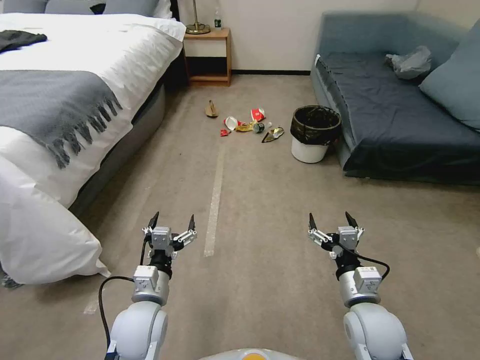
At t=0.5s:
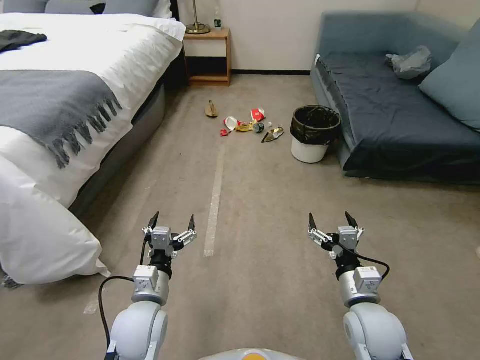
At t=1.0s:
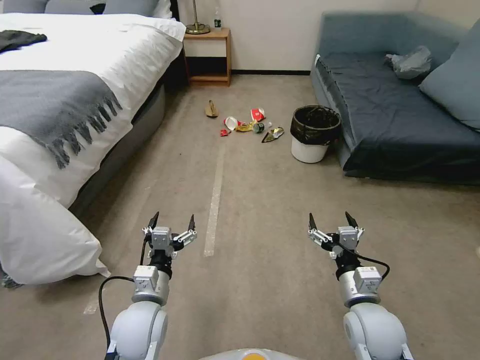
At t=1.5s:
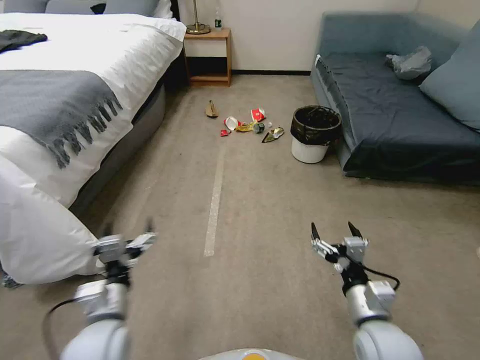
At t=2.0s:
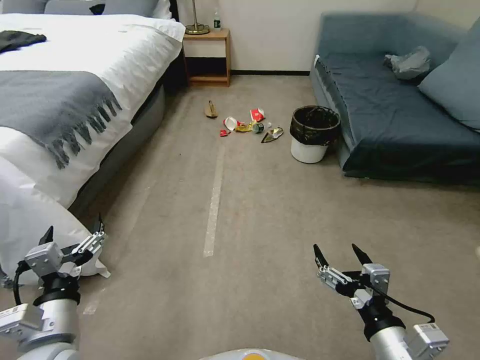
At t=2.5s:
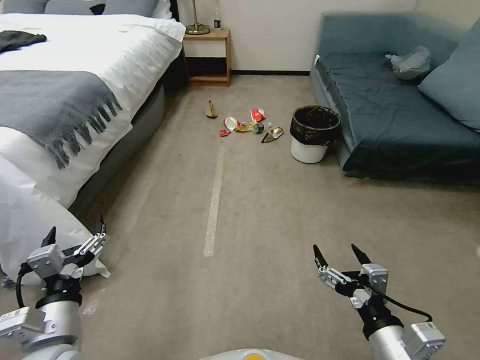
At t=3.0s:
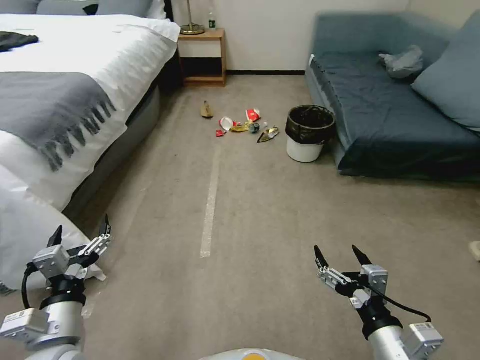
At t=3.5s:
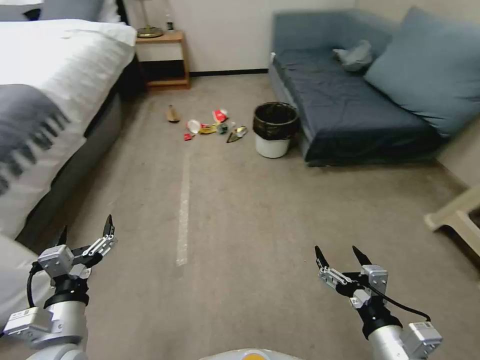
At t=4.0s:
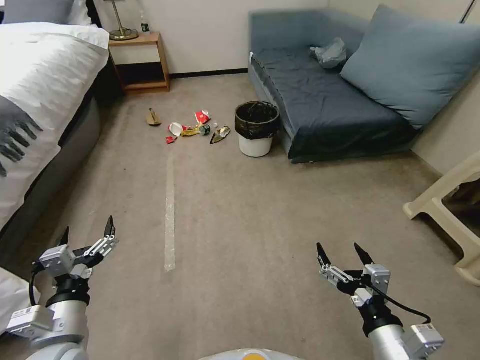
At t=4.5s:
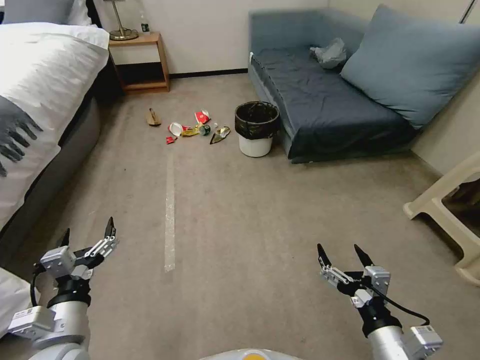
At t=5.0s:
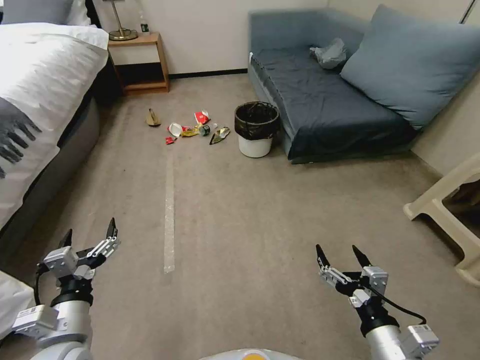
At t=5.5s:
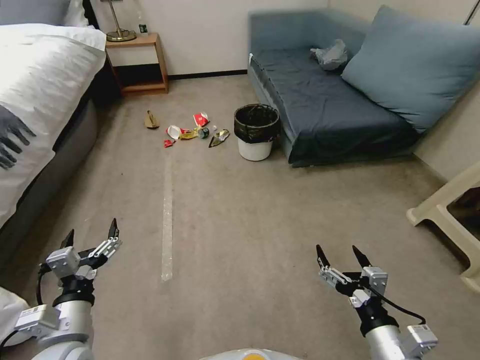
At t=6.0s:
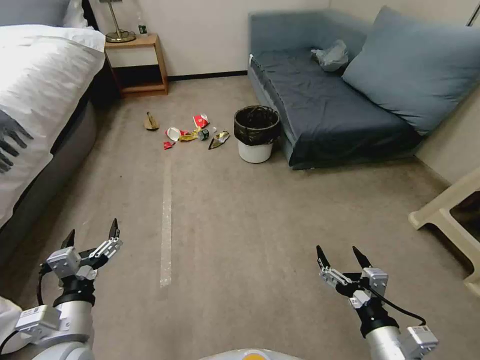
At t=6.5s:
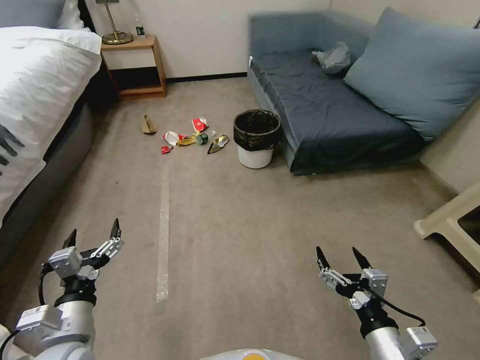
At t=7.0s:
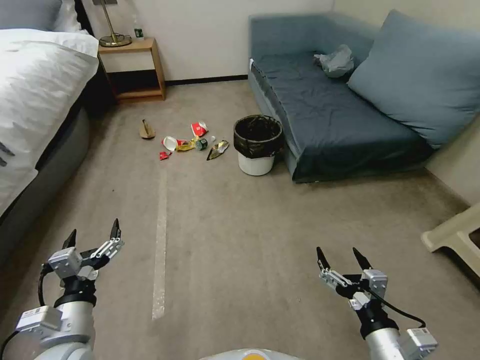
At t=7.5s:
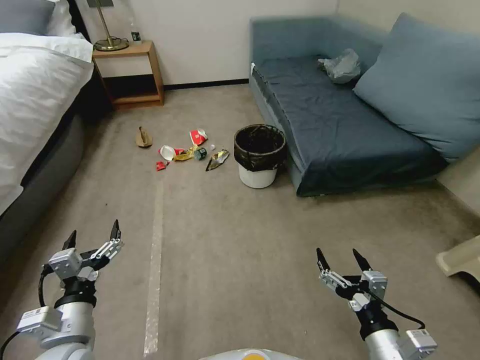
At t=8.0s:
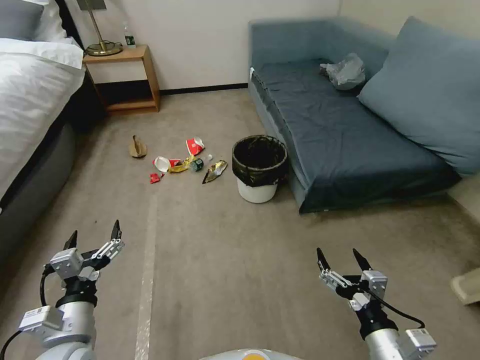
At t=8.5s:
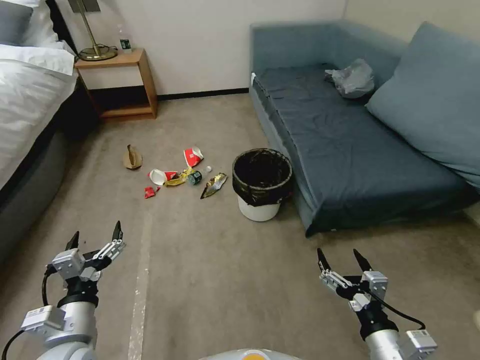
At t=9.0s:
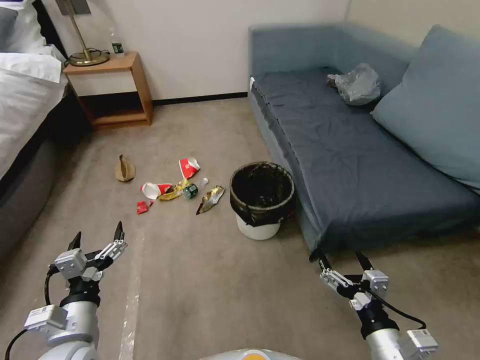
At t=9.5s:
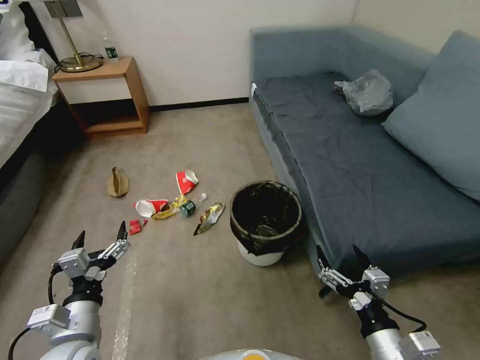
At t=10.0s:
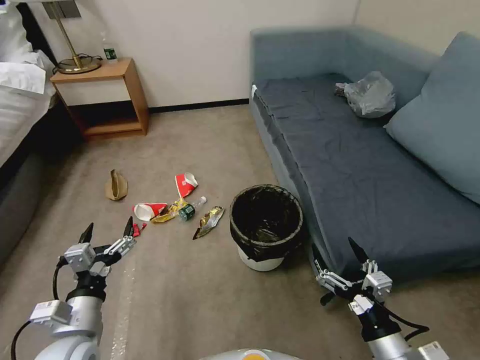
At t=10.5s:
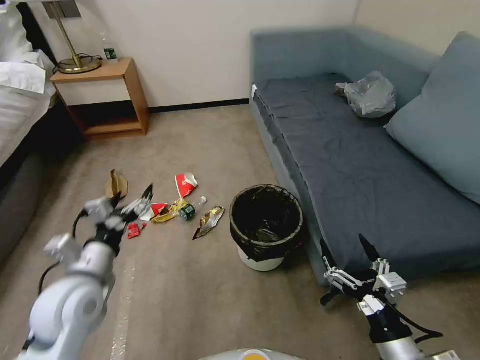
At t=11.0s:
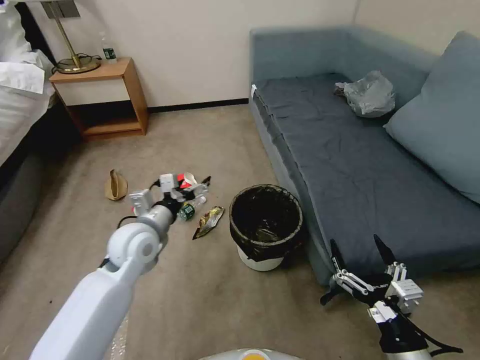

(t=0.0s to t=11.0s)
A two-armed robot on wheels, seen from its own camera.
Task of the whole recording: Pick up the trash can from the floor.
t=9.0s - t=11.0s: The left gripper heads forward, covering about 20 cm.

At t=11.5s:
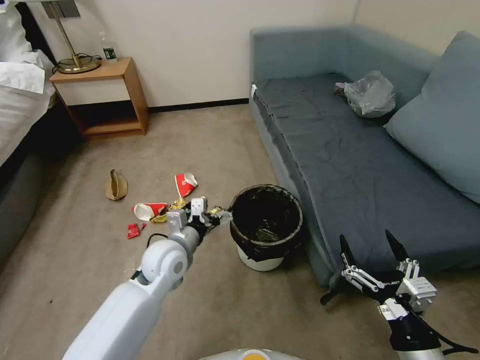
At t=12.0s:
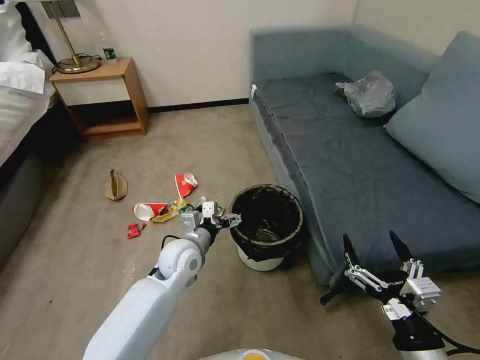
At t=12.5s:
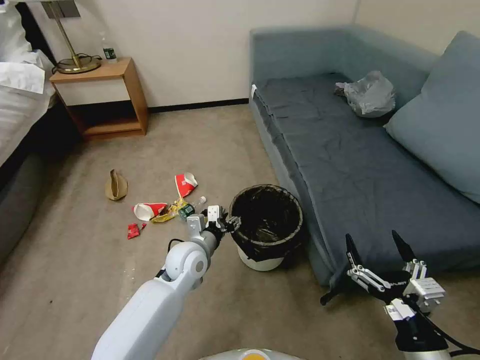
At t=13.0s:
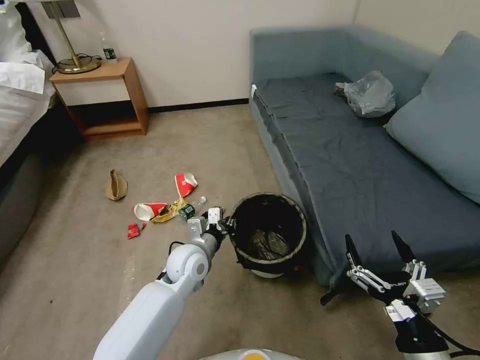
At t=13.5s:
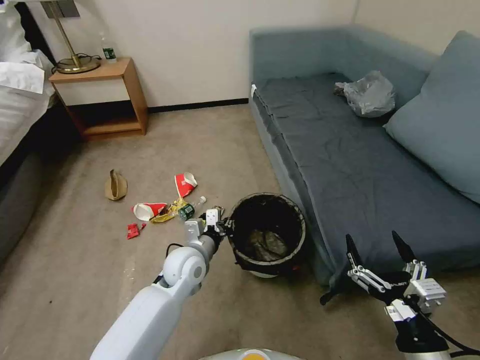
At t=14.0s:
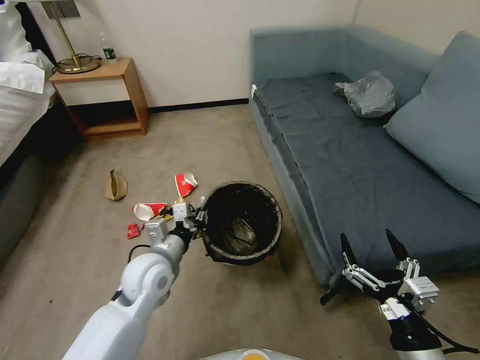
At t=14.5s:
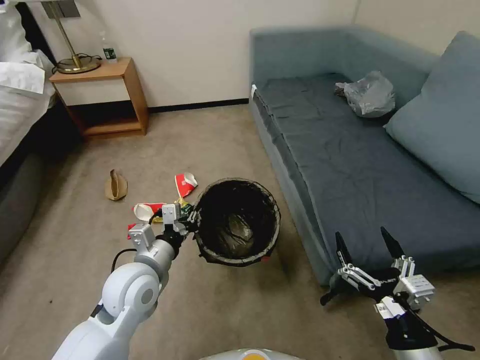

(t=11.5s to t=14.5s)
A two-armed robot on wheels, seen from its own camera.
Task of the whole recording: Pick up the trash can from the floor.
t=11.5s - t=13.0s: The left gripper changes place by about 5 cm, and closes up.
t=13.0s - t=14.5s: The left gripper goes some 15 cm upward, backward and to the left.

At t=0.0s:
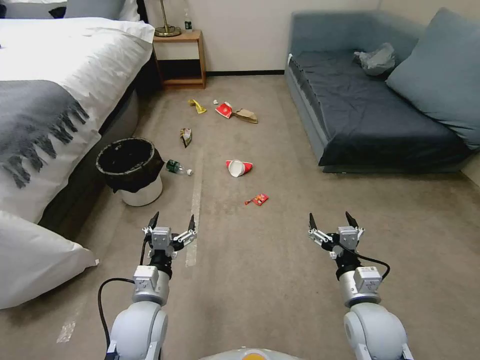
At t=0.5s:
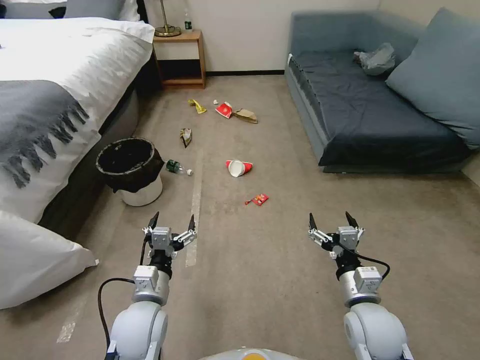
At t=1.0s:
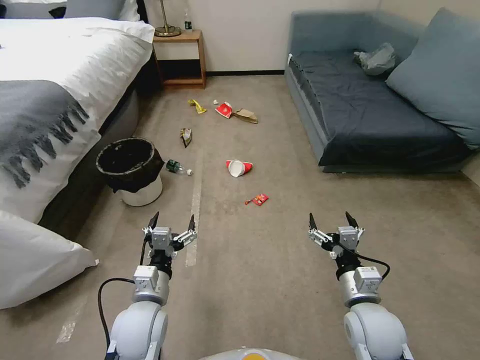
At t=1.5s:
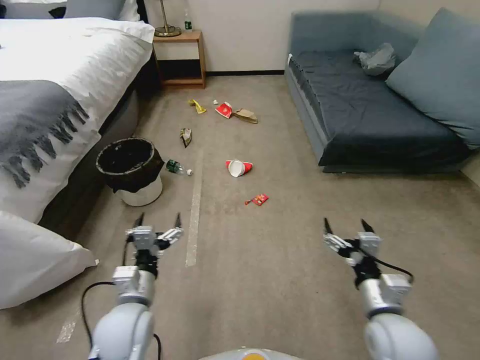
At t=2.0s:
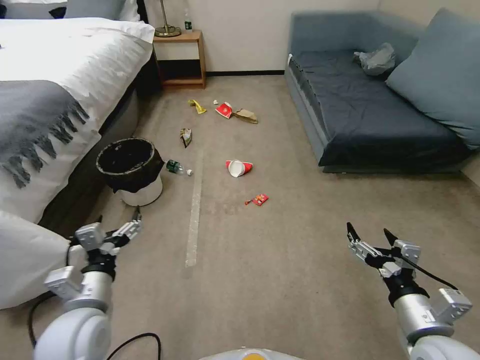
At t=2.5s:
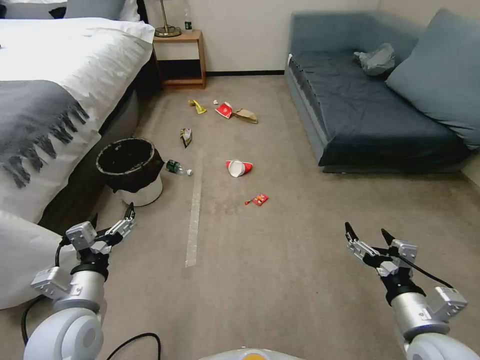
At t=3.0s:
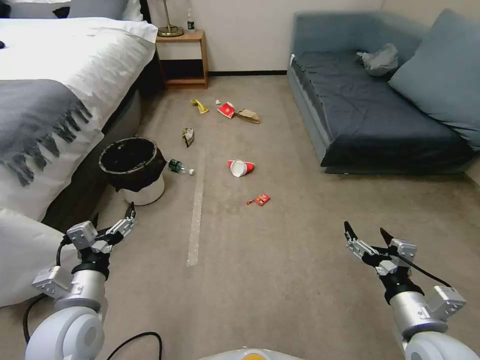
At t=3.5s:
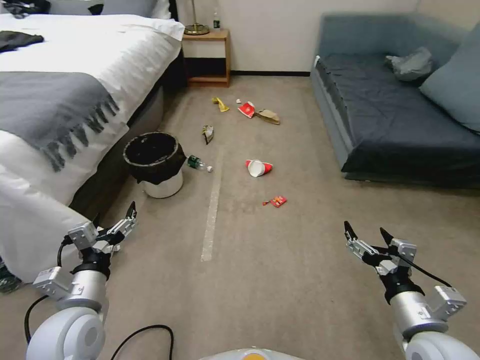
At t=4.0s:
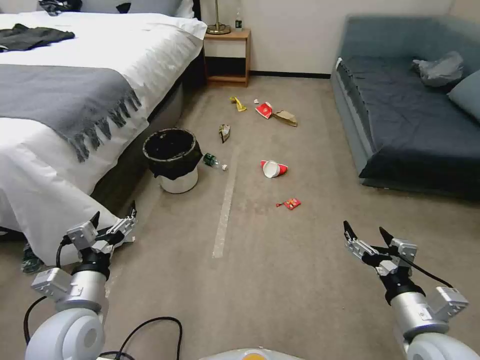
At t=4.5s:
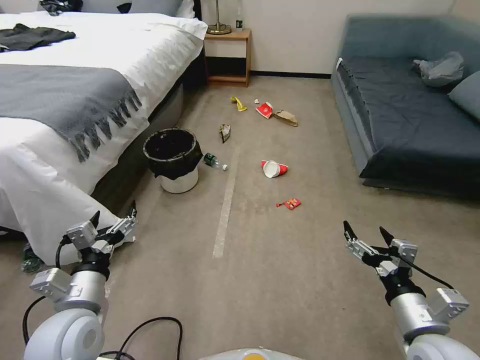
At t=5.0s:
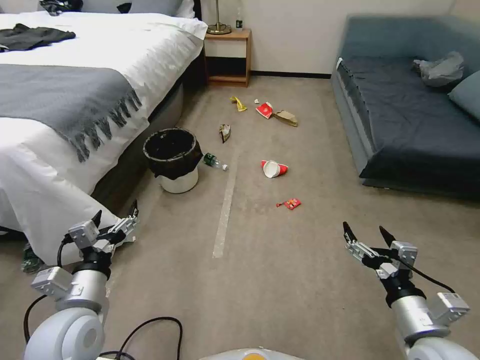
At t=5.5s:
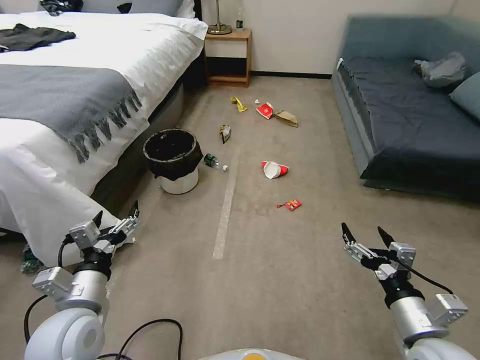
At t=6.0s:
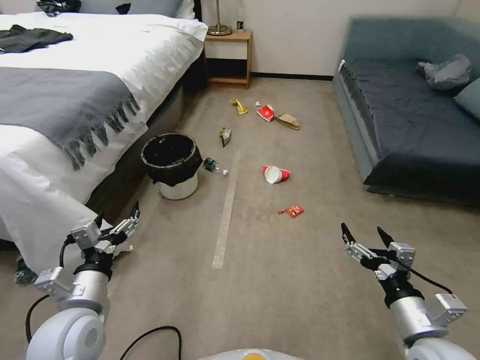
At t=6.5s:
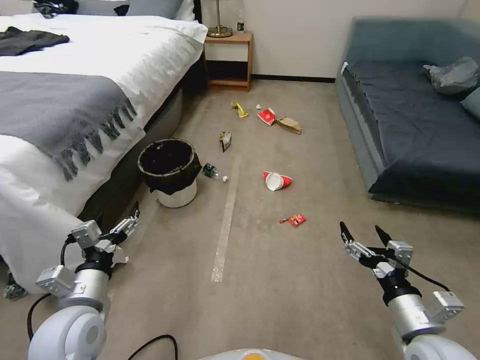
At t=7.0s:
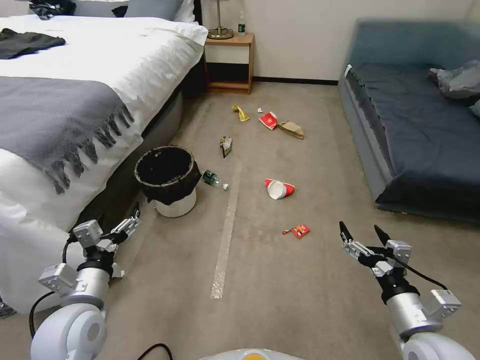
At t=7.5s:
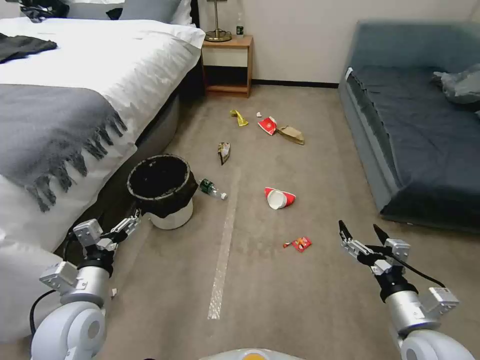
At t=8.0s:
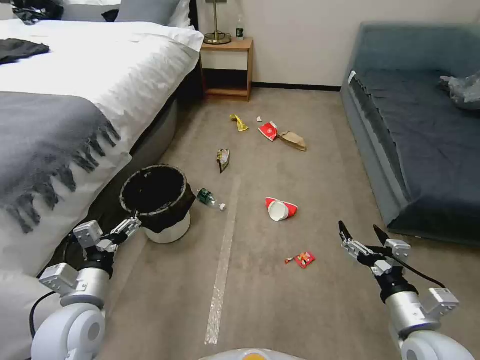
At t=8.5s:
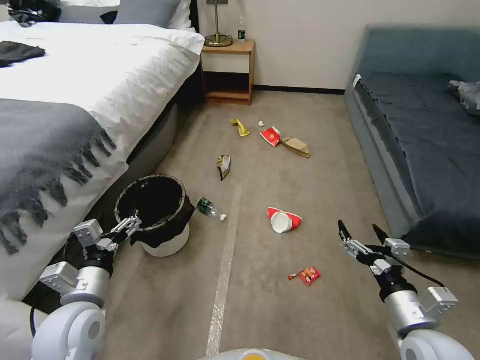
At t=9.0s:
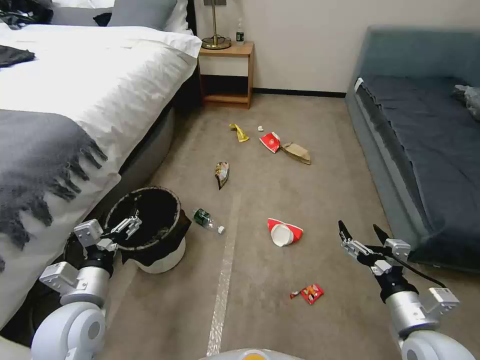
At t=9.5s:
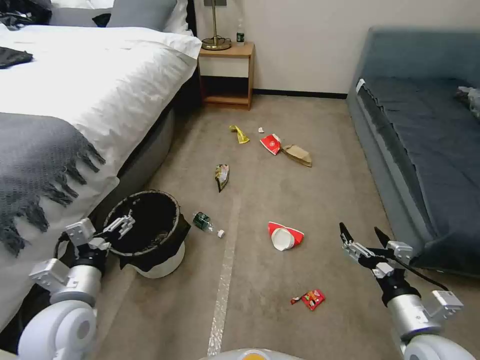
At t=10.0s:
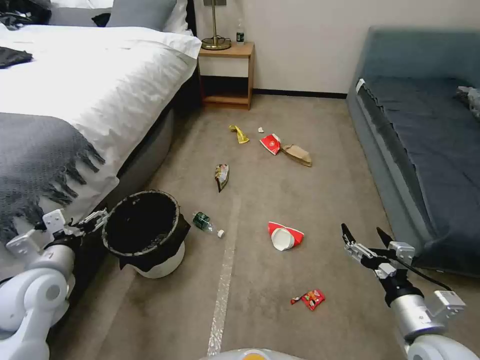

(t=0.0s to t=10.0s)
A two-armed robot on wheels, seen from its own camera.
Task of the whole recording: Pick up the trash can from the floor.
t=4.0s - t=6.0s: The two grippers keep their place.
t=8.0s - t=10.0s: The left gripper is displaced to the left by roughly 5 cm.

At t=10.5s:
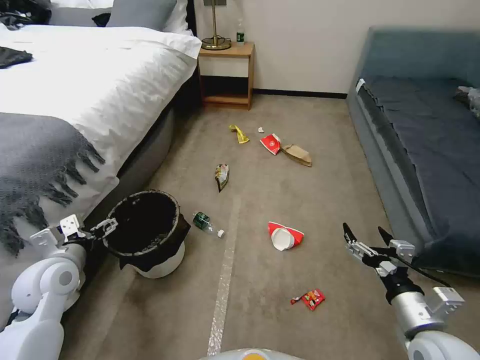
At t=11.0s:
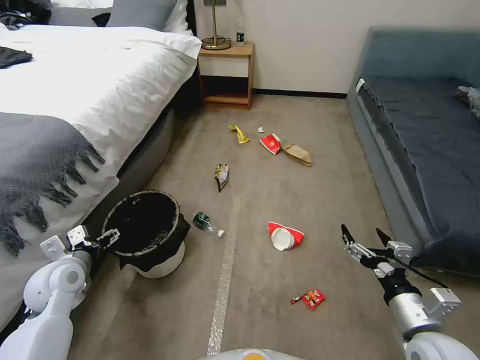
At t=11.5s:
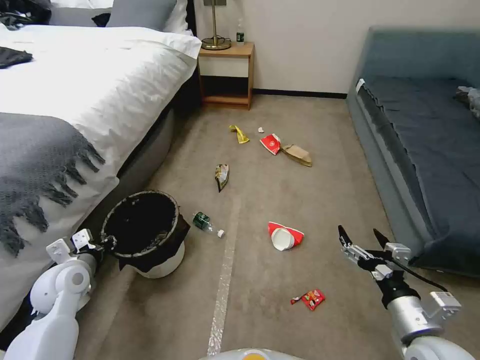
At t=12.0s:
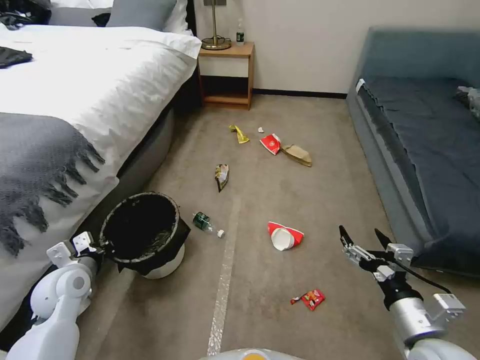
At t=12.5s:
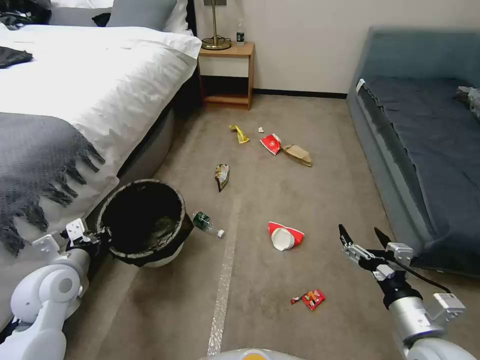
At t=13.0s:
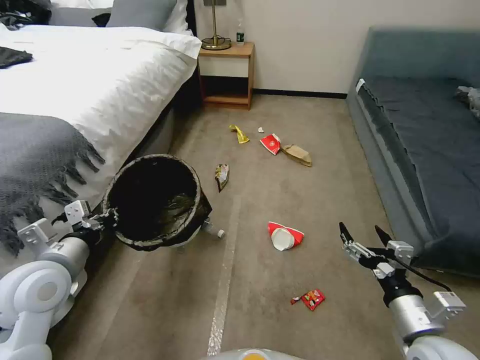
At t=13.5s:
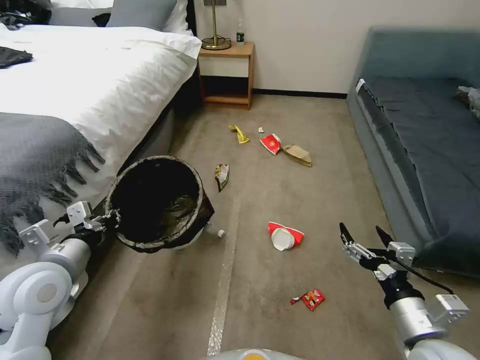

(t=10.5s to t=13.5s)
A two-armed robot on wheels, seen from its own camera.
Task of the whole recording: Pick up the trash can from the floor.
t=10.5s - t=12.0s: The left gripper heads downward, covering some 5 cm, and closes its fingers.
t=12.0s - t=13.5s: The left gripper shifts about 15 cm upward.
